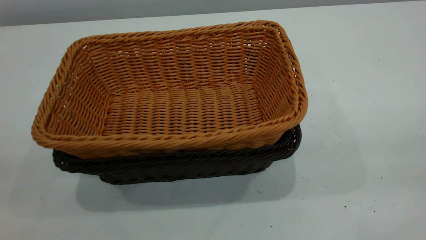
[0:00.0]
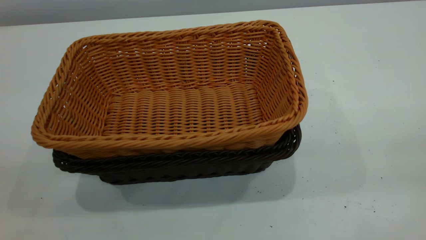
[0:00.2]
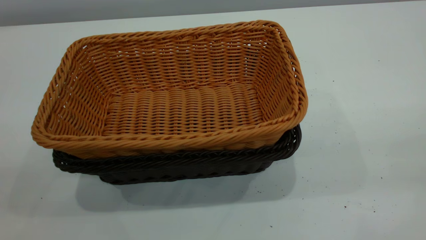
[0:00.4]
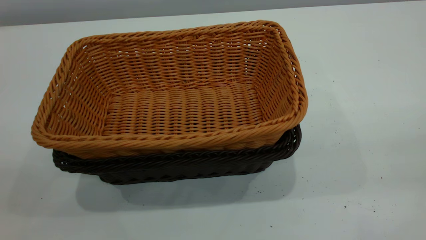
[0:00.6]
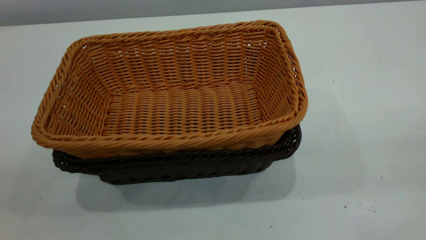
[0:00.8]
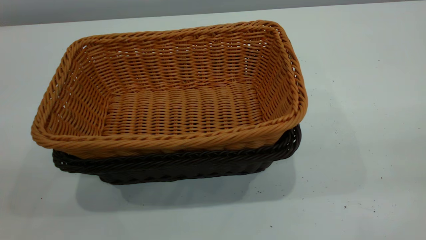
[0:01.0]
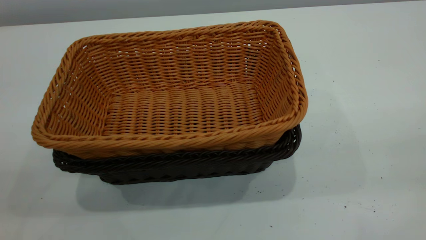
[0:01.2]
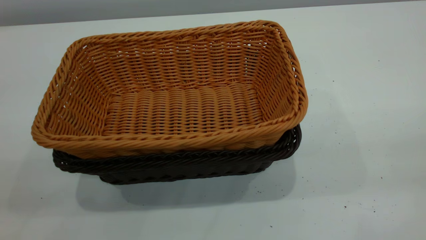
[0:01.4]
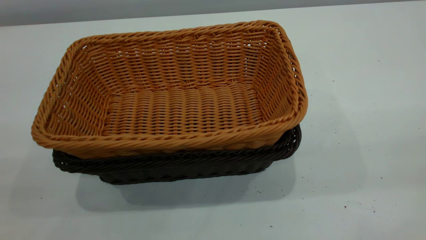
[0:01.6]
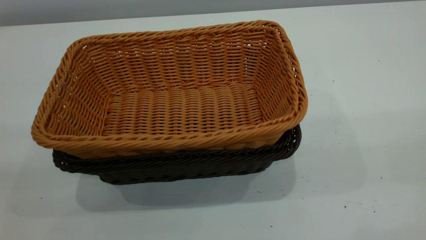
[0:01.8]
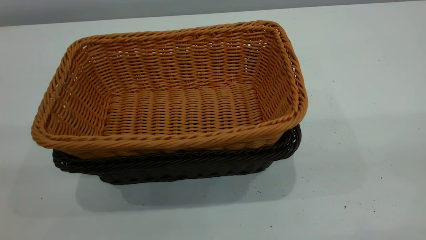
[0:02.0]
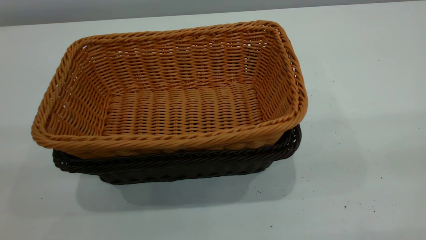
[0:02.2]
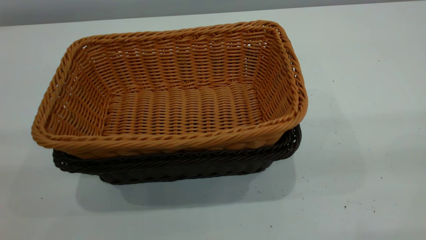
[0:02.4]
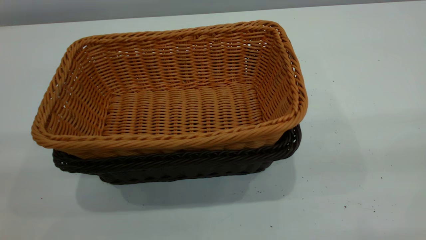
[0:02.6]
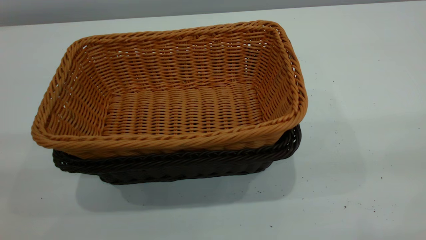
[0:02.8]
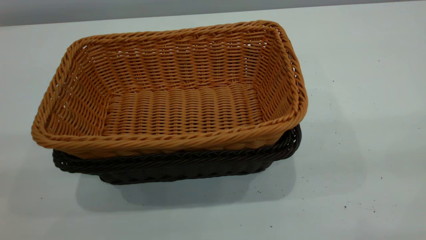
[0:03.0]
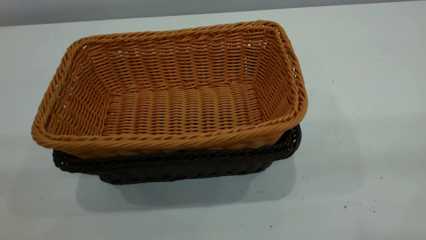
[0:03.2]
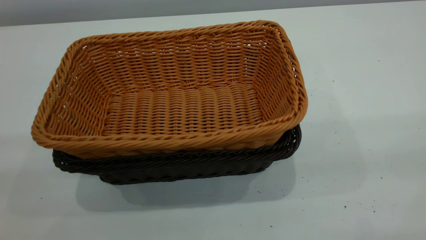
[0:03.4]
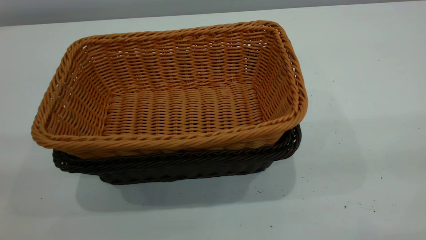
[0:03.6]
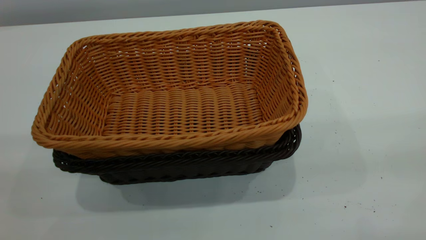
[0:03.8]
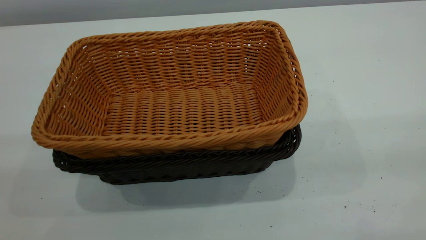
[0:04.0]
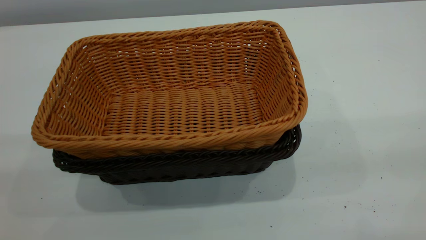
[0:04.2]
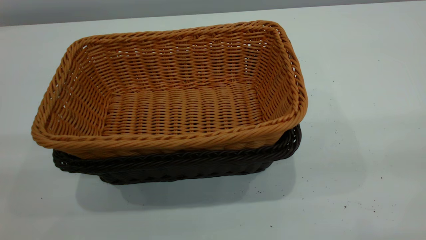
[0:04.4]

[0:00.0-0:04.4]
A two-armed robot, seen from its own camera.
Task of the whole recording: the left gripper grasp the black basket and place it in the center of the table, the right gripper grasp the brown basket and place it inside the black one.
0:03.0 to 0:04.4: Neither gripper changes place.
